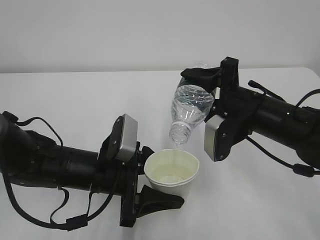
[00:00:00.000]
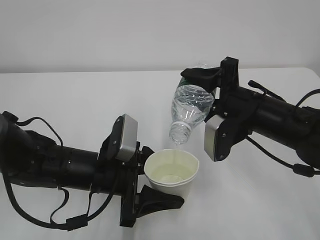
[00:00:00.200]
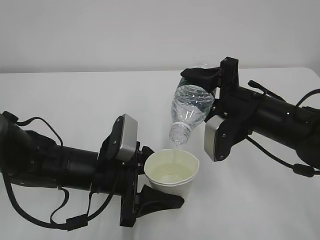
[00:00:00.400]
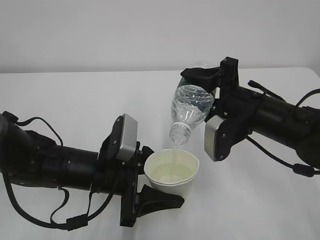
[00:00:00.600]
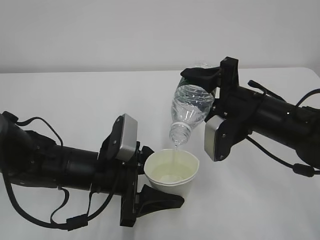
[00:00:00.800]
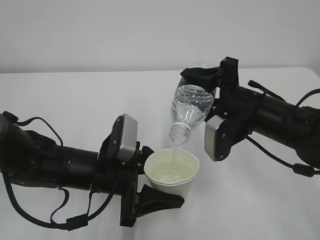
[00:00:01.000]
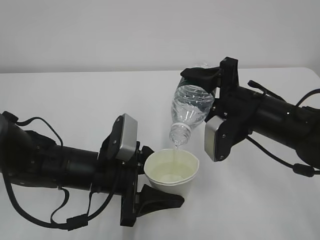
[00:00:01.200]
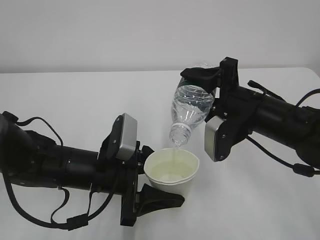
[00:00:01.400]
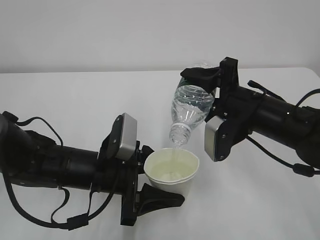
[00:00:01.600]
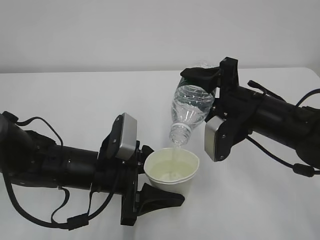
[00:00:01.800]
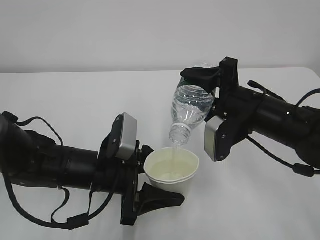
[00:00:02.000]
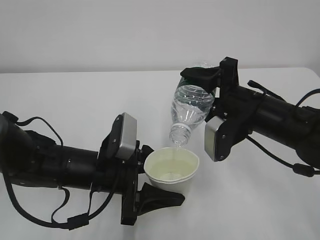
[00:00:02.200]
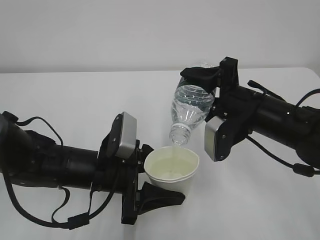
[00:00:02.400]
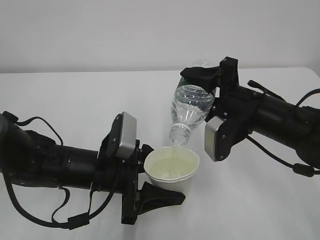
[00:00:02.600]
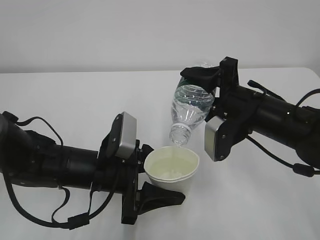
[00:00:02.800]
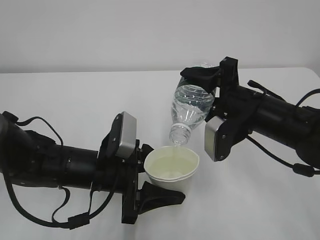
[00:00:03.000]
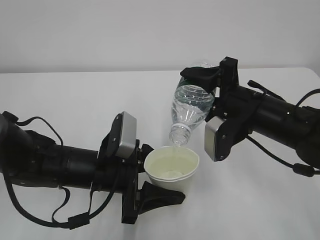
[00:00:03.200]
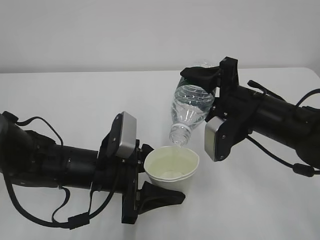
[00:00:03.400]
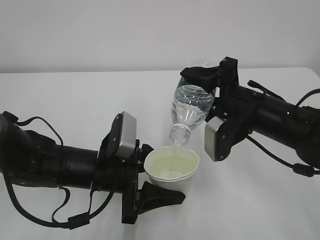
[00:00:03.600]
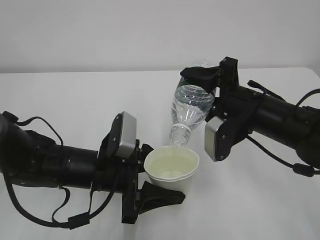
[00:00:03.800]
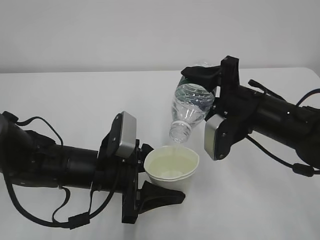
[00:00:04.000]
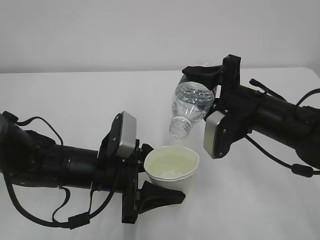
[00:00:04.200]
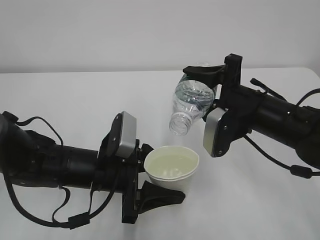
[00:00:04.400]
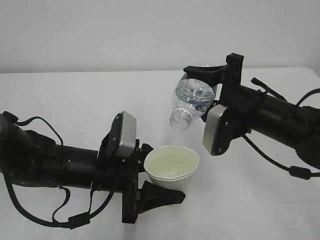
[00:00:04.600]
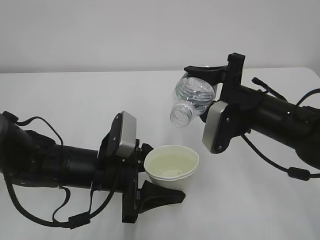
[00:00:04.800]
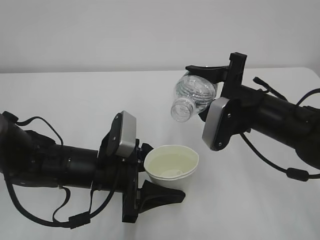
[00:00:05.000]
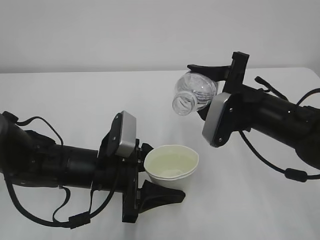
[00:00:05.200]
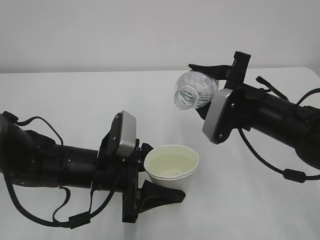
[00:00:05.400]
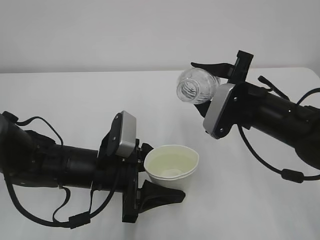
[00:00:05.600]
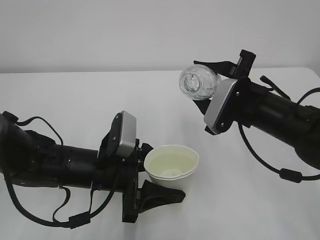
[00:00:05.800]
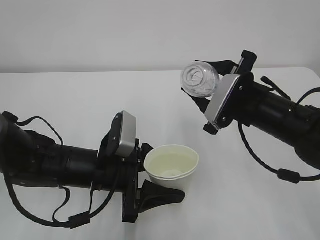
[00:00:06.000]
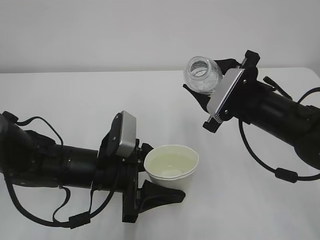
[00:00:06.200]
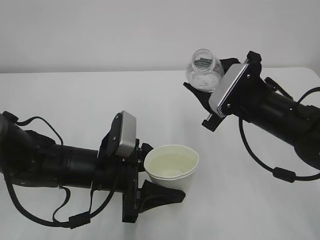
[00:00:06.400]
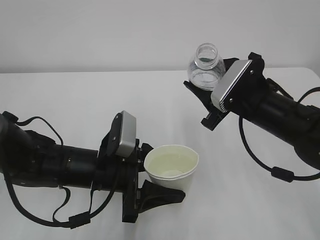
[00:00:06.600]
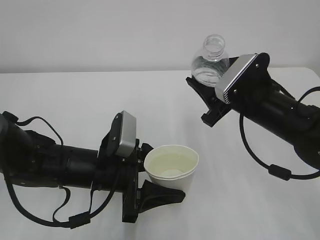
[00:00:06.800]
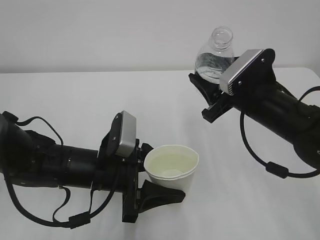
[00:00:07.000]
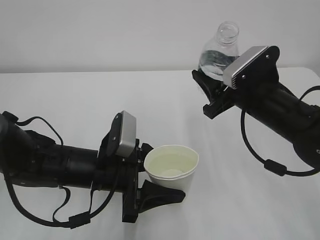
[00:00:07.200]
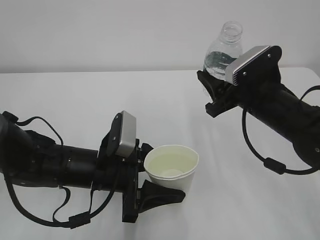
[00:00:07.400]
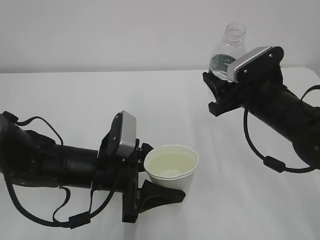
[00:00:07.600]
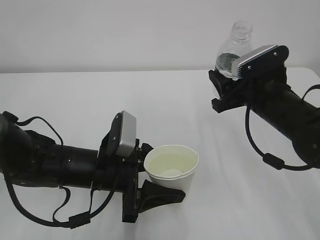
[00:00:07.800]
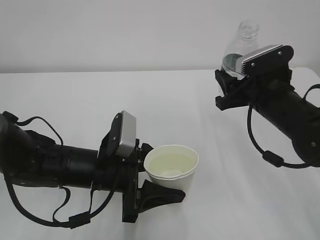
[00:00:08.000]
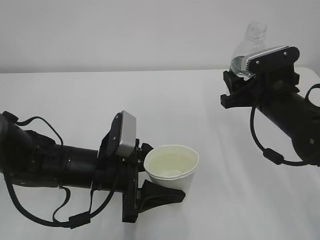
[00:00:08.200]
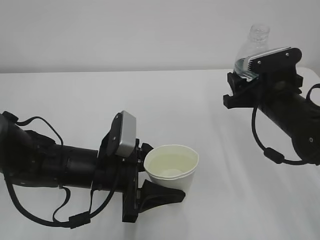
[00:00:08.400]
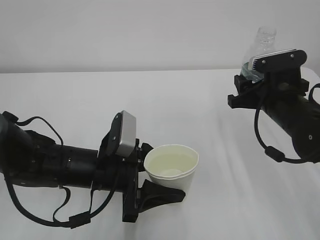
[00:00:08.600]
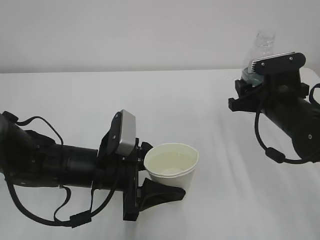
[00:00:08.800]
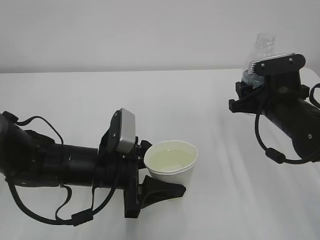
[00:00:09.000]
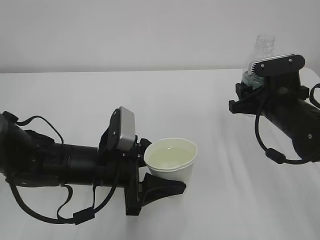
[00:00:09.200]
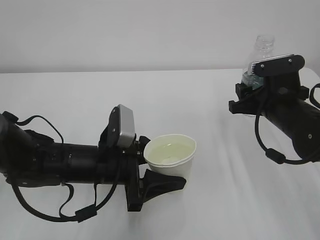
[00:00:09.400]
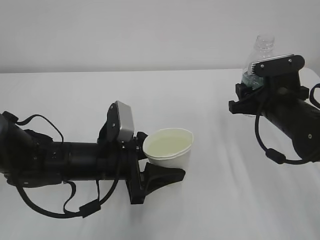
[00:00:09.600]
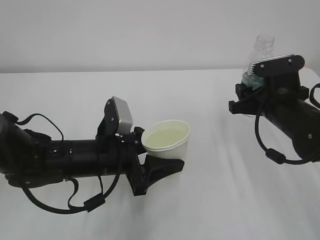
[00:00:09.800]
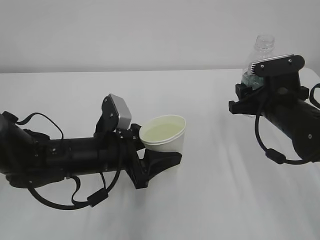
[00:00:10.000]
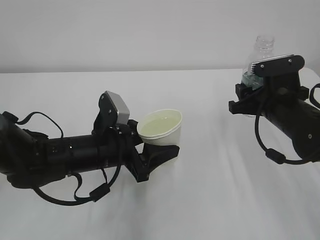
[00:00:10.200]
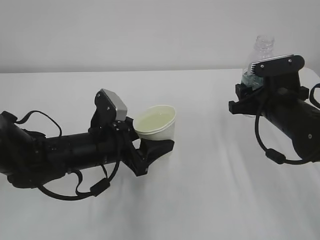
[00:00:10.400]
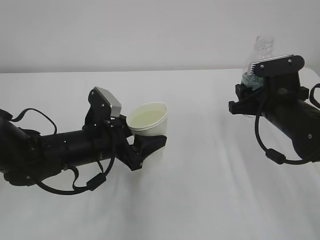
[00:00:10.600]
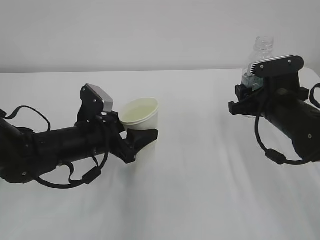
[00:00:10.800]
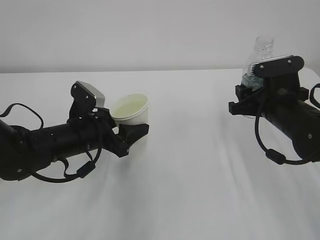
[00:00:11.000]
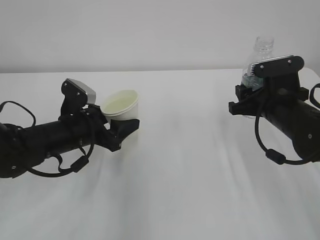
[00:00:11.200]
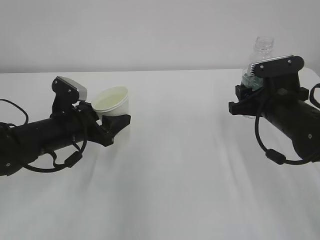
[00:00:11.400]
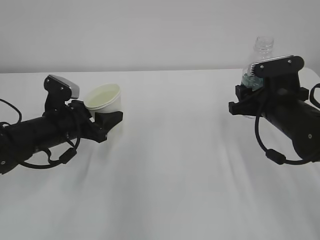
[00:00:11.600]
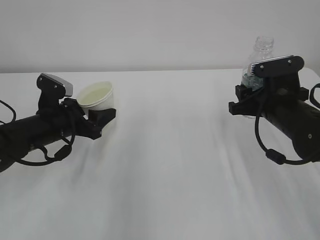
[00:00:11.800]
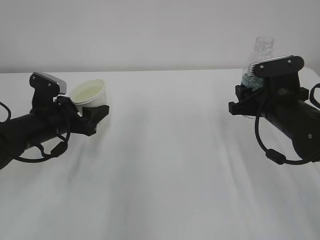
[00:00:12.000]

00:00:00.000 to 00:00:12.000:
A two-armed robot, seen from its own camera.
00:00:00.000 to 00:00:03.000: The two grippers keep their place.
00:00:03.000 to 00:00:04.400: There are only small adjustments of the grippers.
00:00:10.400 to 00:00:12.000: The left gripper goes some 15 cm to the left and forward.

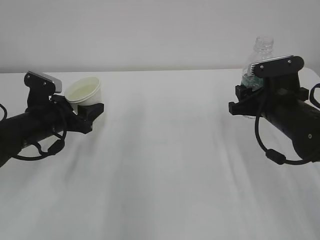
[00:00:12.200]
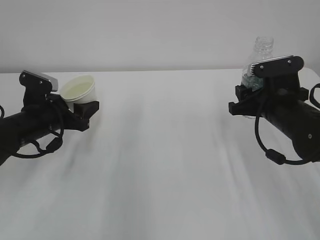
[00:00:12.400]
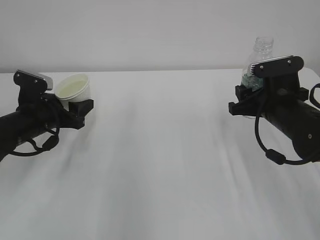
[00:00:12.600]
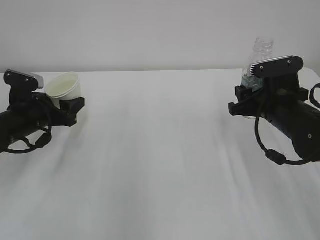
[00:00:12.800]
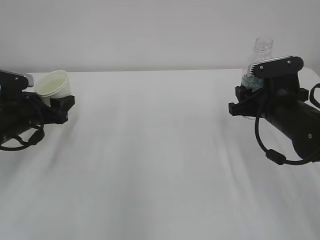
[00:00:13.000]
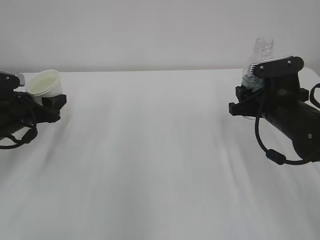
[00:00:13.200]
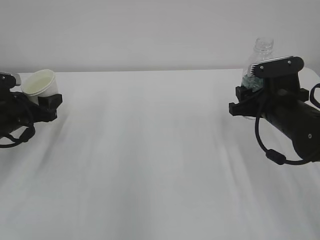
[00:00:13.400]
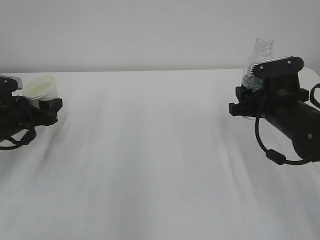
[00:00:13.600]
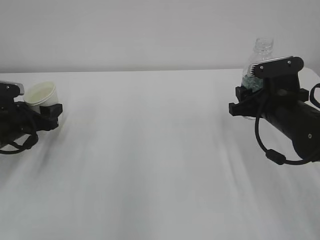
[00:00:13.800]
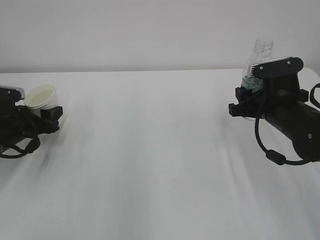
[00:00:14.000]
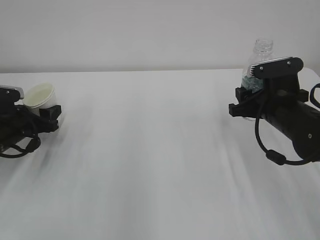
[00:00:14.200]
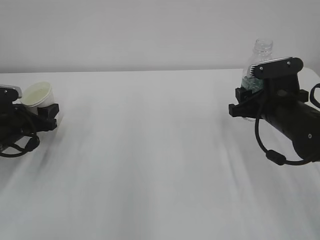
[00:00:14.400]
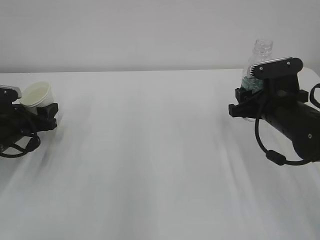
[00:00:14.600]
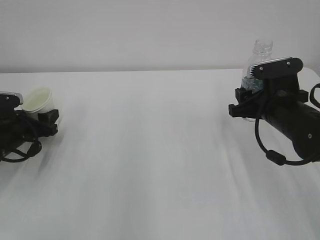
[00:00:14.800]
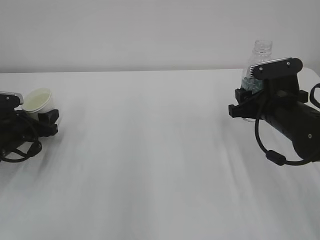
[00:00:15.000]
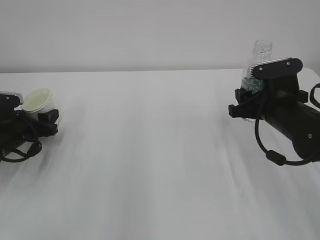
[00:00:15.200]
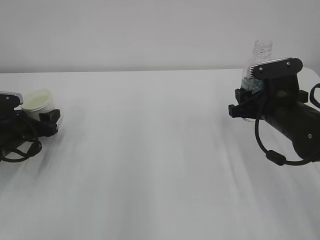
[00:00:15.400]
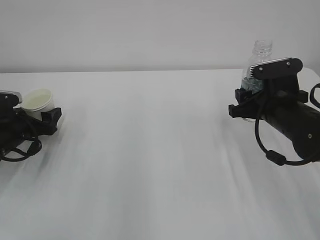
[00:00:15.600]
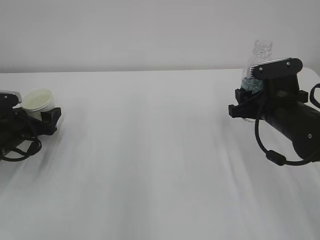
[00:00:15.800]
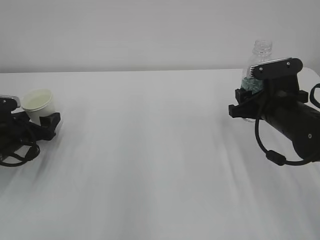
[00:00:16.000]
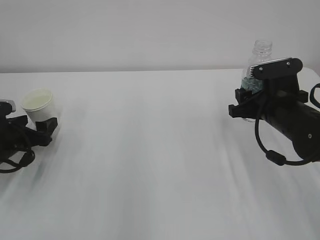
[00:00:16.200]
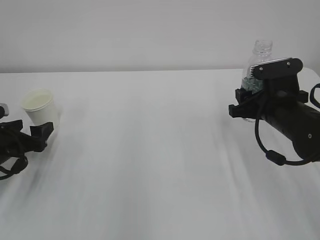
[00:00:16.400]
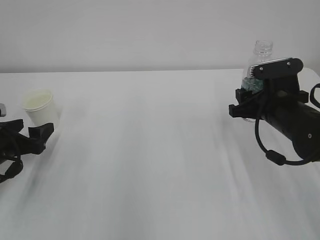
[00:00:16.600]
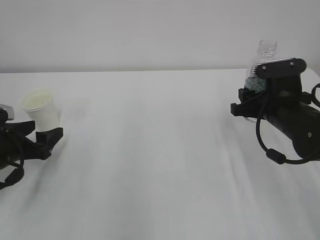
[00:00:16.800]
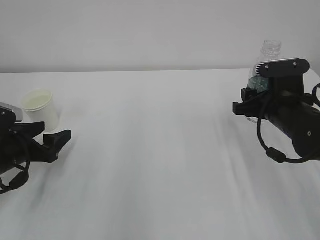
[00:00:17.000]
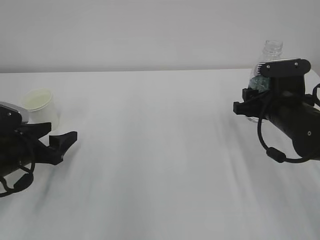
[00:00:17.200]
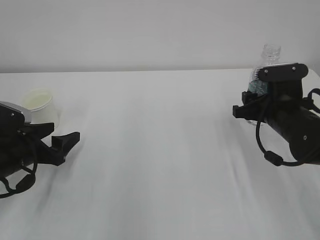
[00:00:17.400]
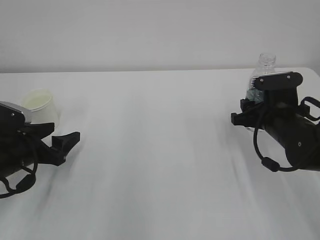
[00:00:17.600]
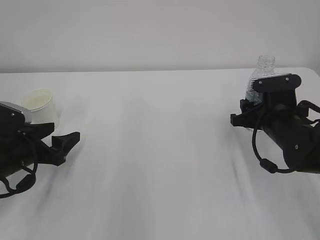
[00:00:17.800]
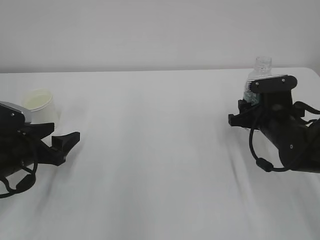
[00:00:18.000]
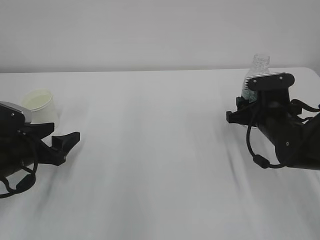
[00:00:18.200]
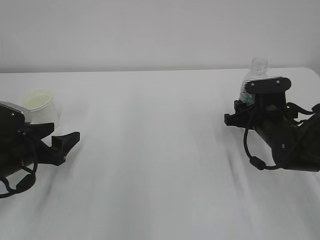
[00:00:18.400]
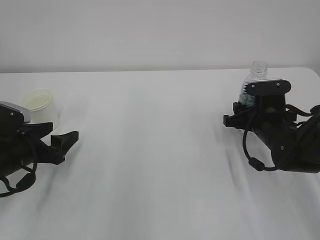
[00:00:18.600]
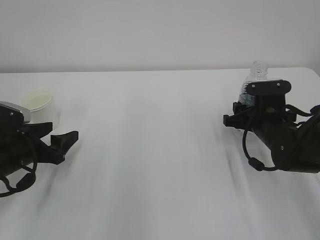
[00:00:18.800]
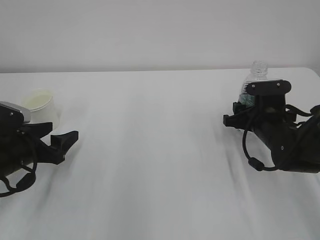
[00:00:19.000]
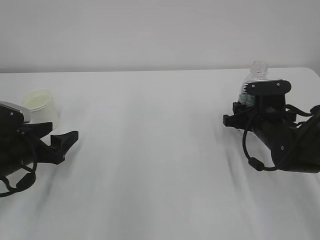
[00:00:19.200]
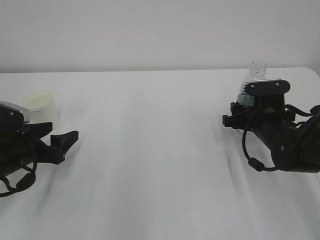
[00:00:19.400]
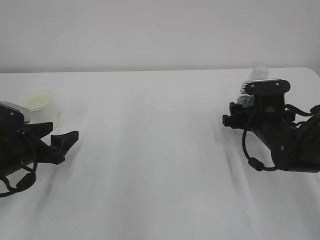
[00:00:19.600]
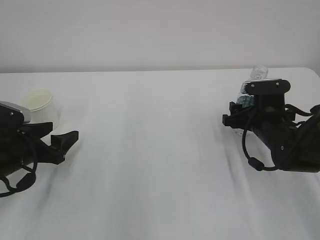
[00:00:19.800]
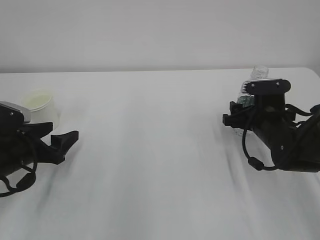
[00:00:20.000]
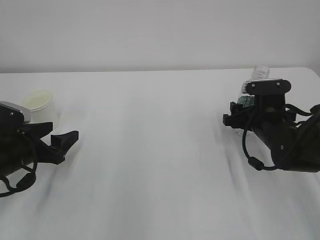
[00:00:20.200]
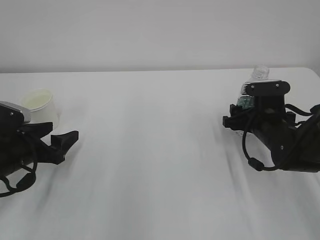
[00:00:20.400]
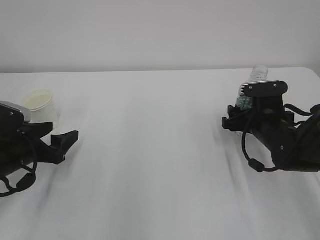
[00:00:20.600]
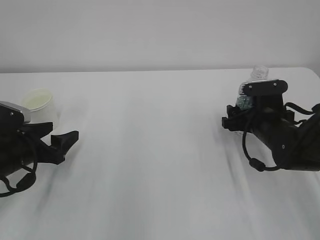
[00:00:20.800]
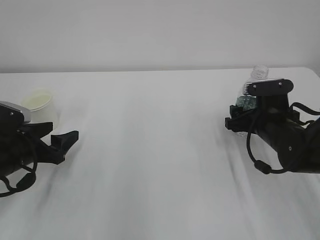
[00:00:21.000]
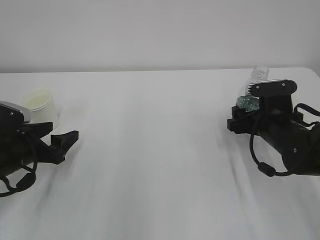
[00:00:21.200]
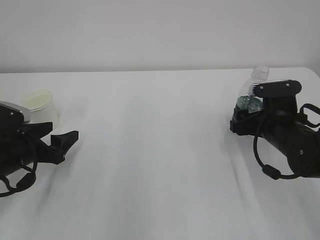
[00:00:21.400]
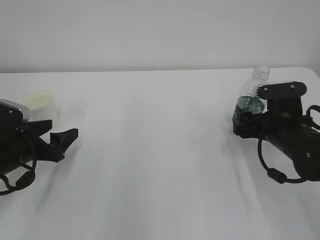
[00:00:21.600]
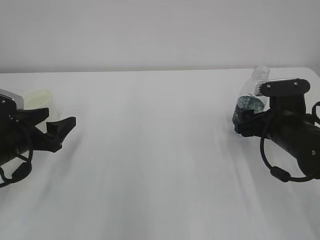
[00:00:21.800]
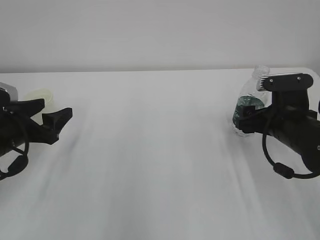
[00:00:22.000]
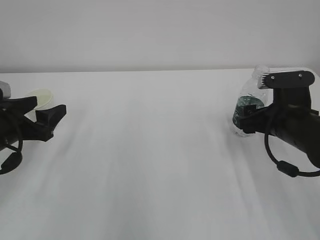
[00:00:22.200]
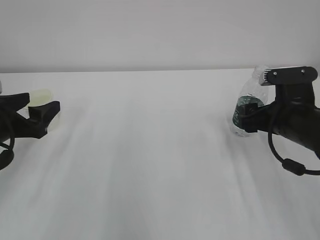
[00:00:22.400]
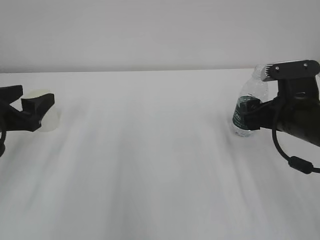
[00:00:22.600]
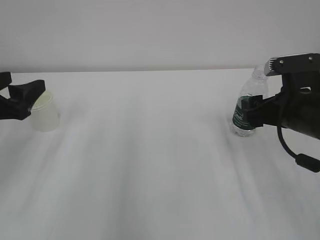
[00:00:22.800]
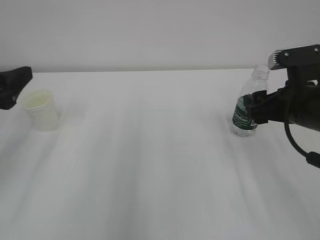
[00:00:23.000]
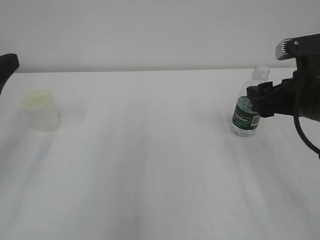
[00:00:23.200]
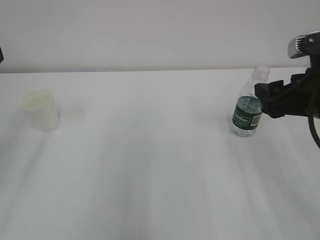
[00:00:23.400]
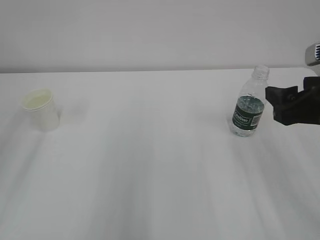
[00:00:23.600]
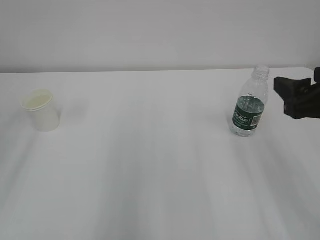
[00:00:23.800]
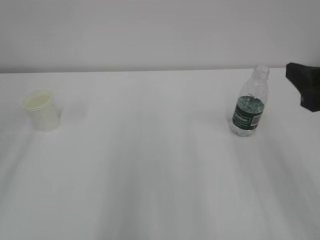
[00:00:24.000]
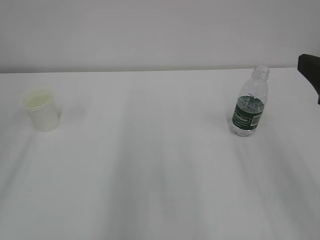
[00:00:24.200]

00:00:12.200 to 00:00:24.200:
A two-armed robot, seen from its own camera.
00:00:12.200 to 00:00:13.800: The left gripper heads to the left, covering approximately 10 cm.
00:00:13.800 to 00:00:15.200: The grippers move only a little.
00:00:15.200 to 00:00:16.600: The left gripper heads backward, covering roughly 5 cm, and opens its fingers.
00:00:16.600 to 00:00:18.200: The grippers stay close to where they were, moving slightly.
00:00:18.200 to 00:00:19.800: The right gripper opens up.
00:00:19.800 to 00:00:21.200: The right gripper opens.
00:00:21.200 to 00:00:22.600: Both grippers travel together upward, roughly 10 cm.
00:00:22.600 to 00:00:24.200: Both grippers move upward and backward, approximately 20 cm.
